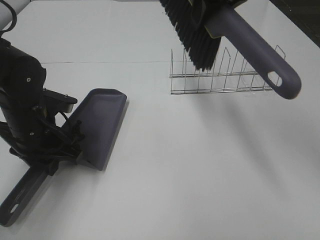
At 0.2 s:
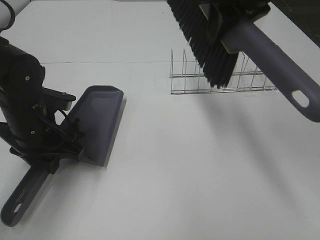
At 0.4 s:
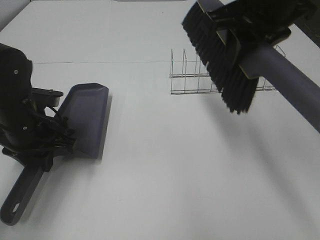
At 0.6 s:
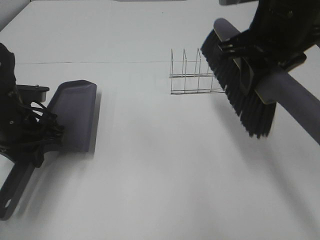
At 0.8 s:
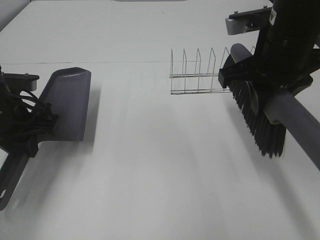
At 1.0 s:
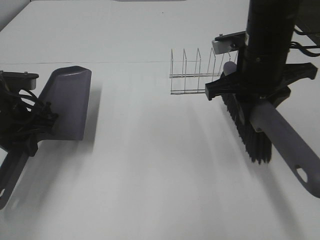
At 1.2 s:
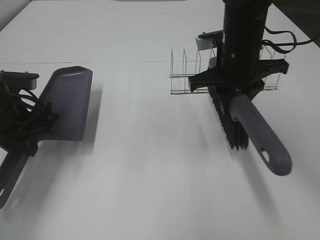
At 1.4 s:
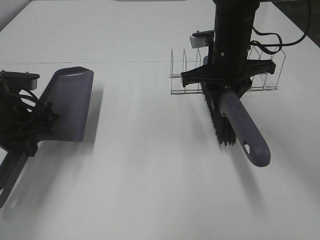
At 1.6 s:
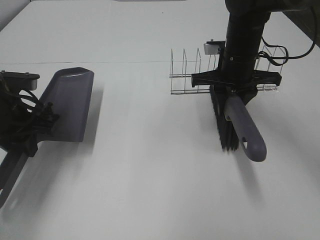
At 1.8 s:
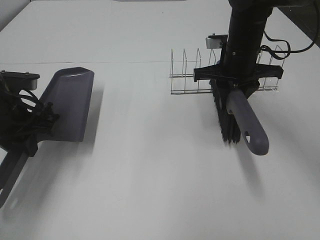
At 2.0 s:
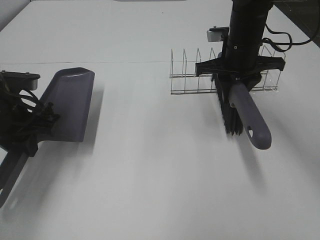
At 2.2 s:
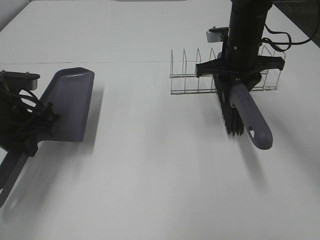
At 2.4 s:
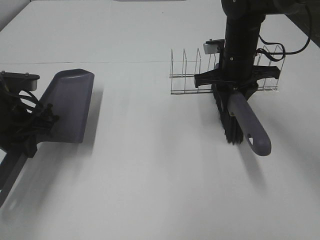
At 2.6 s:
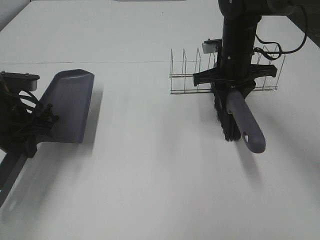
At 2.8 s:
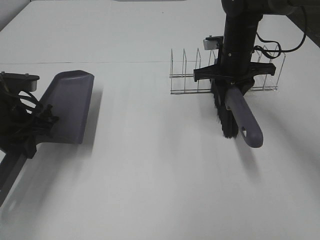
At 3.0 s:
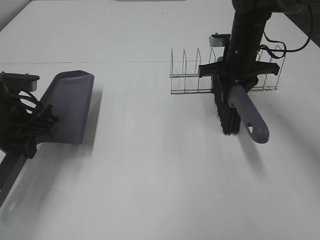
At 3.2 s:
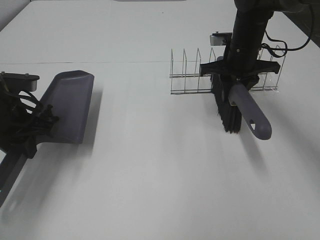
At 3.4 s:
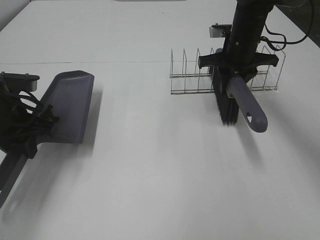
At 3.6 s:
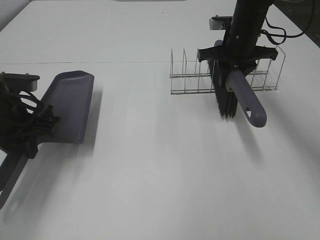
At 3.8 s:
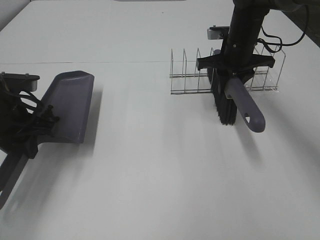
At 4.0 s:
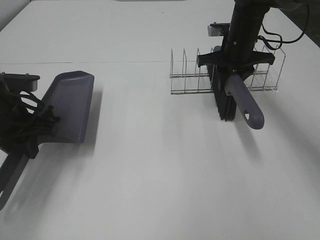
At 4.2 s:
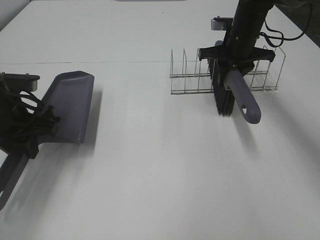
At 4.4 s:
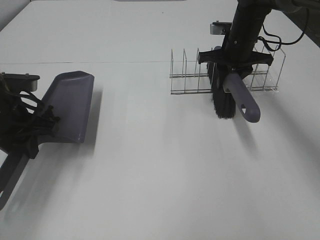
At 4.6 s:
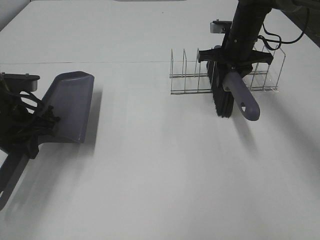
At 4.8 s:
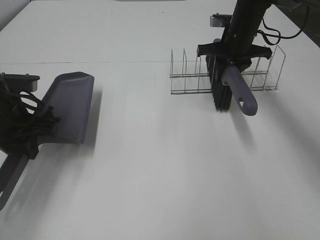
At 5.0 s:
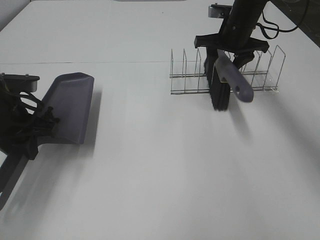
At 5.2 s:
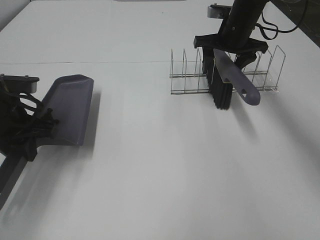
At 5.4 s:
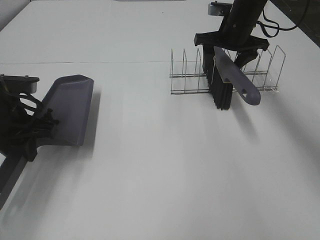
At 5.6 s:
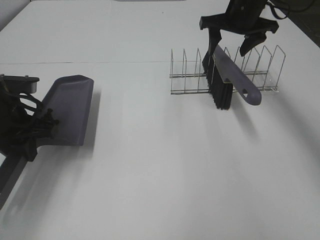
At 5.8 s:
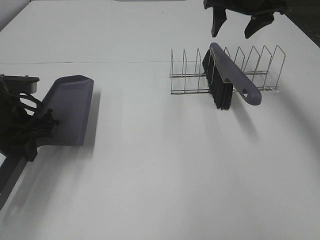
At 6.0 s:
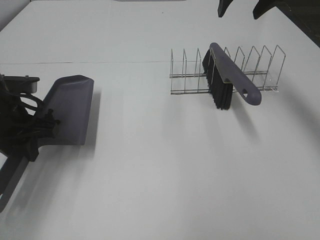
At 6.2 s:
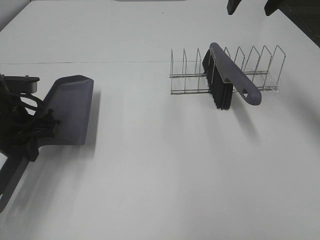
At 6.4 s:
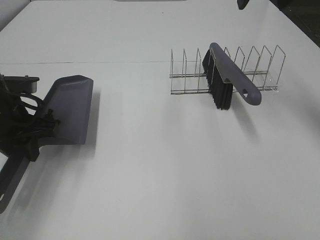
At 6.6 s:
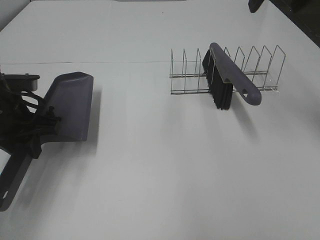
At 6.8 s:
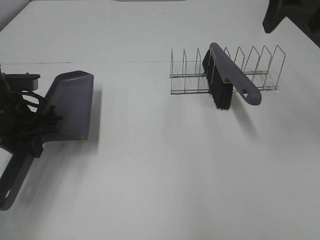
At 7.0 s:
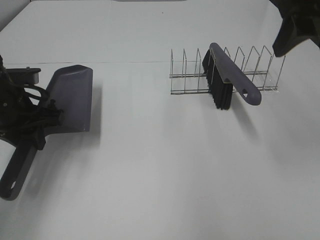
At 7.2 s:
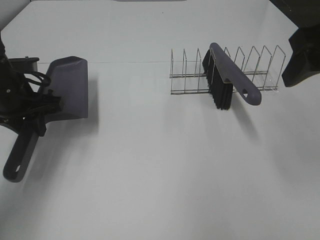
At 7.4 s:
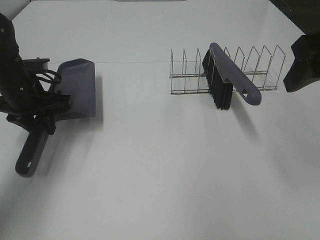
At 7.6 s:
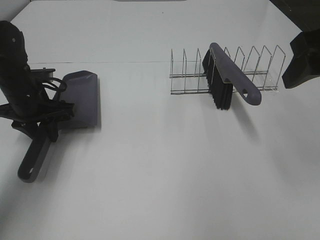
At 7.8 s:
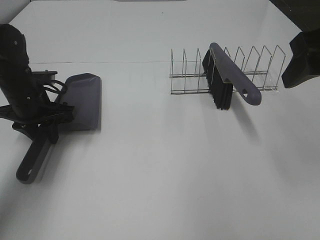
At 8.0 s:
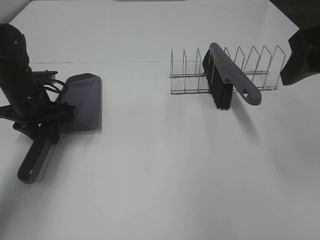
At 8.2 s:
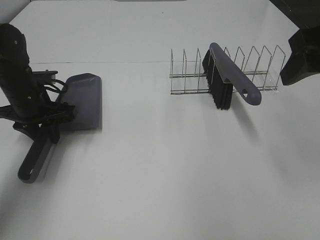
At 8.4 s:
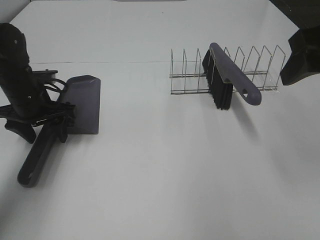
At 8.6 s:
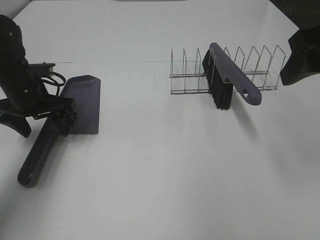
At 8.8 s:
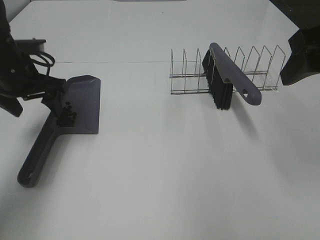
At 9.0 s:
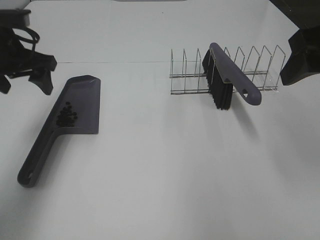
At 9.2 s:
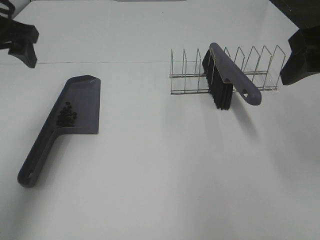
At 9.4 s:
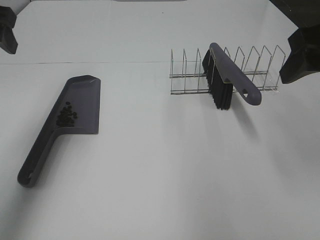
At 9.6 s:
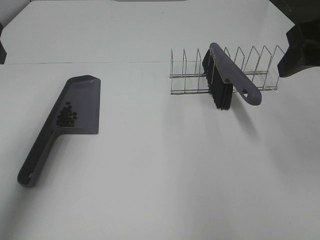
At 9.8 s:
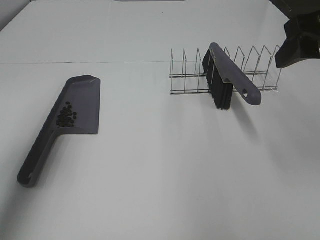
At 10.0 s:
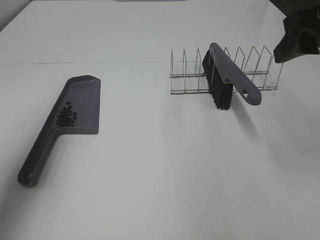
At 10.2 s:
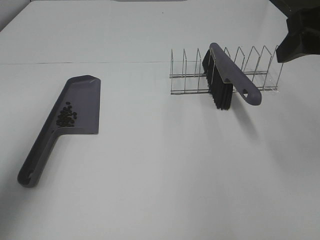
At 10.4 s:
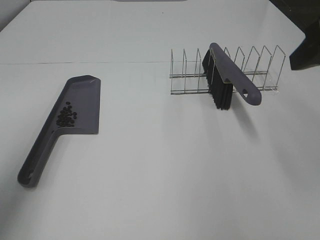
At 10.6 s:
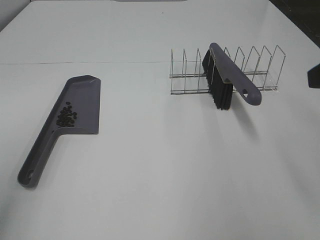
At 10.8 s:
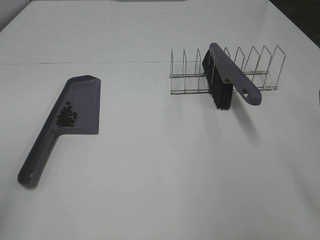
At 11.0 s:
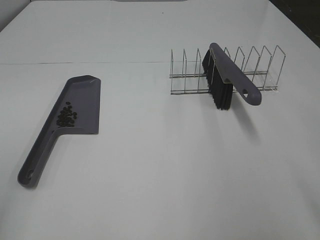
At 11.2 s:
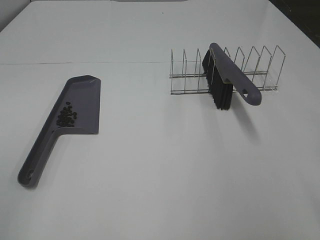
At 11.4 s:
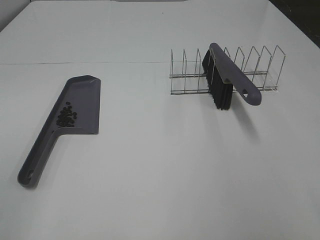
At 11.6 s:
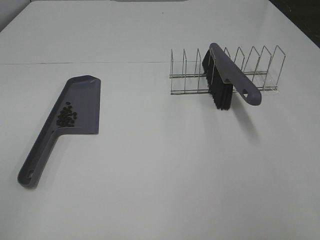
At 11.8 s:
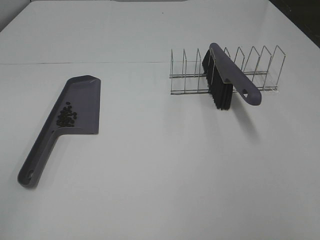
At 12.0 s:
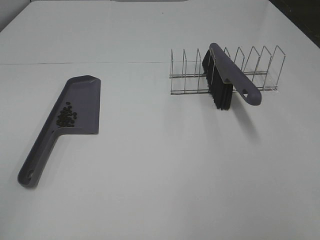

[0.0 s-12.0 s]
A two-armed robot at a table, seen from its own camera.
Task of the whole recording: Sweep Coffee Bean.
Step, 0.0 to 5.4 s: Right hand:place the broom on the rack.
Step, 5.6 to 8.6 s: Left hand:place the dustpan on the table.
0.0 to 1.6 s: The left gripper shifts about 5 cm to the left. The right gripper heads downward, covering about 20 cm.
1.6 to 3.0 s: The right gripper changes place by some 5 cm.
3.0 to 4.4 s: The grippers move only a little.
4.4 to 6.0 s: The right gripper goes approximately 15 cm upward, and opens its fingers.
6.0 to 7.6 s: The right gripper is displaced backward by some 25 cm. Meanwhile the left gripper goes about 5 cm forward.
7.6 to 9.0 s: The left gripper goes about 10 cm upward, and opens its fingers.
9.0 to 10.4 s: The left gripper is displaced backward and upward by roughly 25 cm.
10.4 to 12.0 s: The left gripper goes approximately 10 cm backward. Meanwhile the right gripper travels backward by about 20 cm.

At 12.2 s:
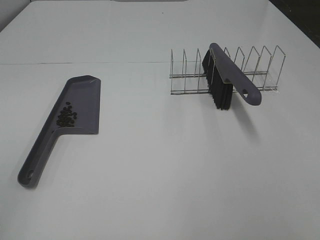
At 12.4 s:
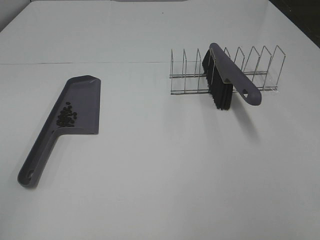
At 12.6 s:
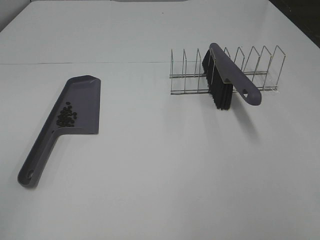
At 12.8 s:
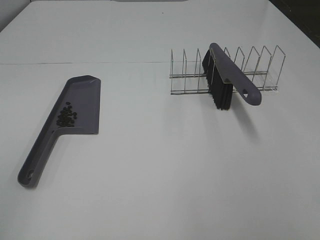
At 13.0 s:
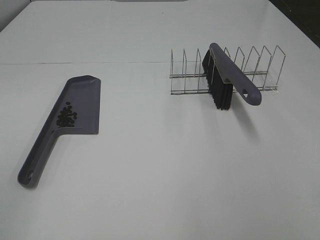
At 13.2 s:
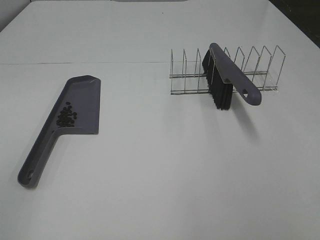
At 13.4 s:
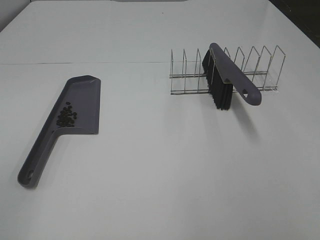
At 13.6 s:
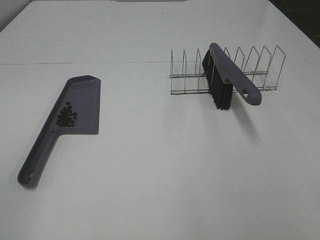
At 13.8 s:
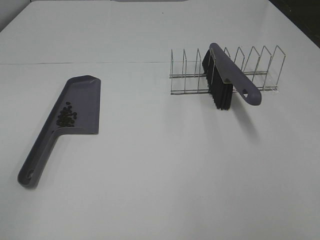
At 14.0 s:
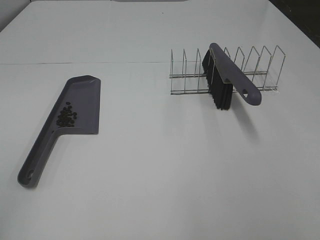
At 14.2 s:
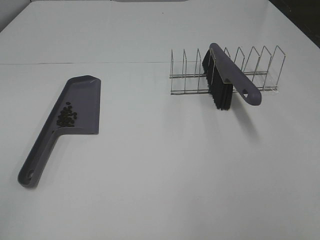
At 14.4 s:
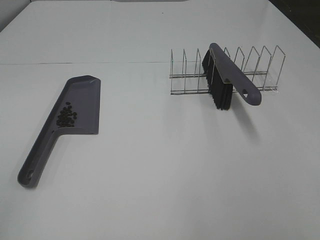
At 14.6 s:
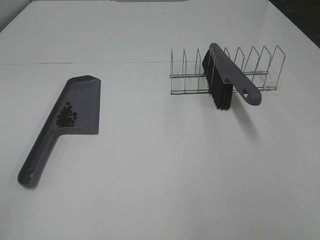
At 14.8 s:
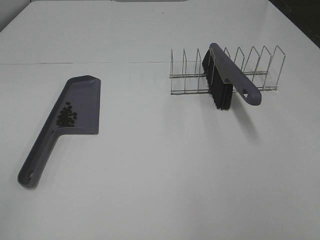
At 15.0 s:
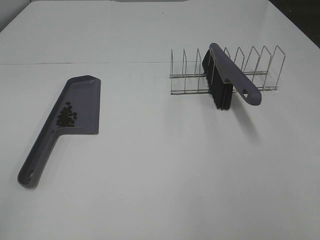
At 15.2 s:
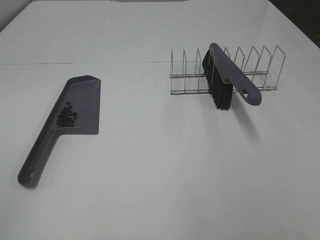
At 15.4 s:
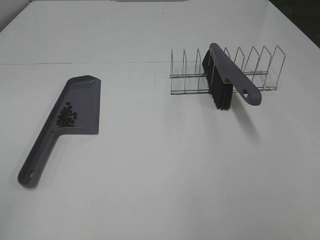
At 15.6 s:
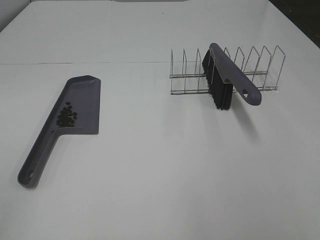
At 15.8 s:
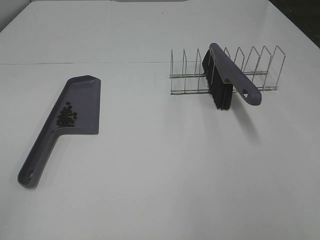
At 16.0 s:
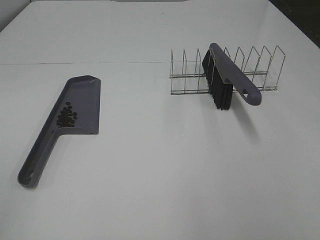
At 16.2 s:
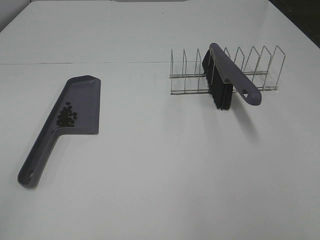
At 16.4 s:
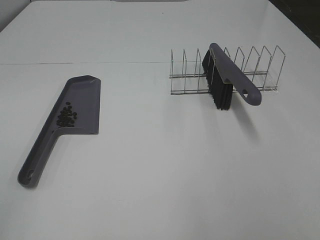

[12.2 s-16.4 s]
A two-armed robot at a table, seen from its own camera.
Task of the whole recording: Sweep Coffee Bean.
12.2 to 13.6 s: The two grippers keep their place.
15.0 to 16.4 s: Both grippers stay put.
